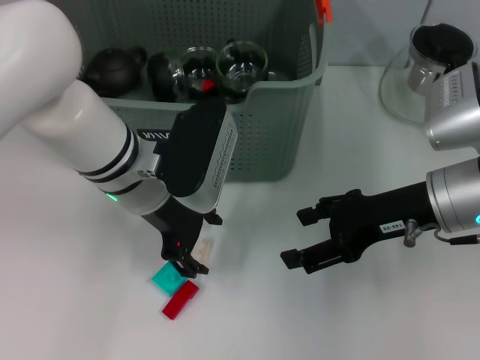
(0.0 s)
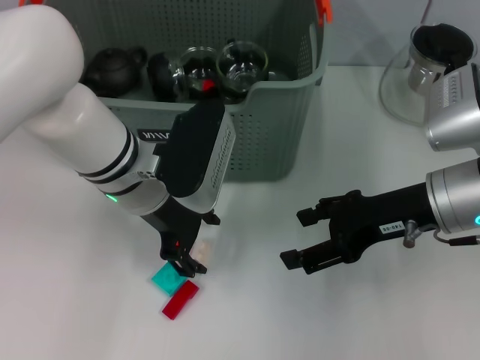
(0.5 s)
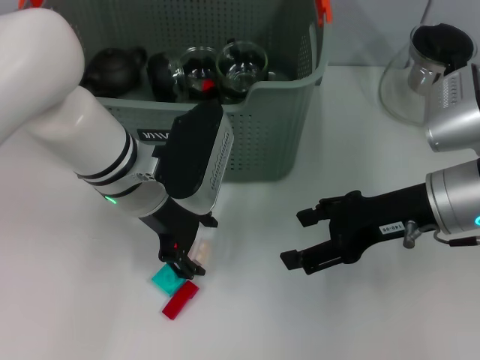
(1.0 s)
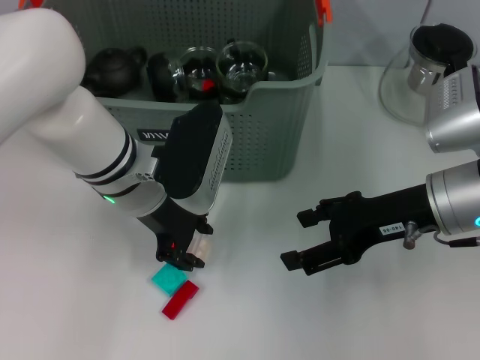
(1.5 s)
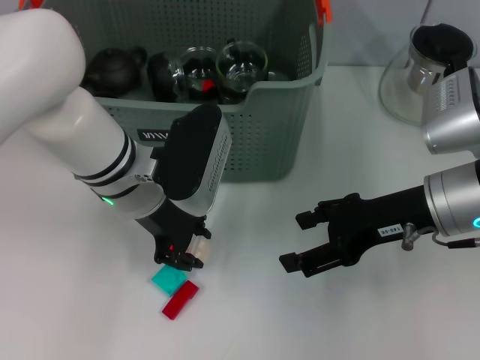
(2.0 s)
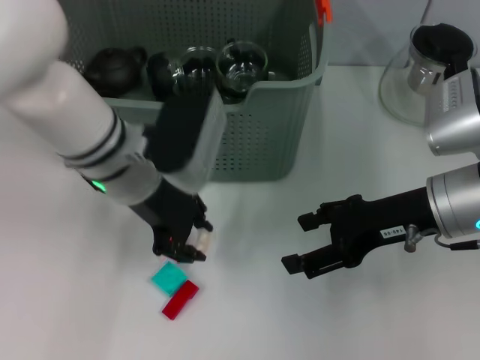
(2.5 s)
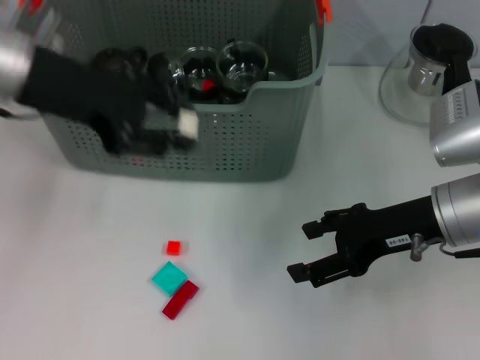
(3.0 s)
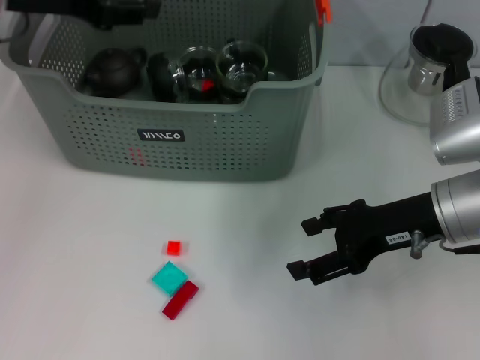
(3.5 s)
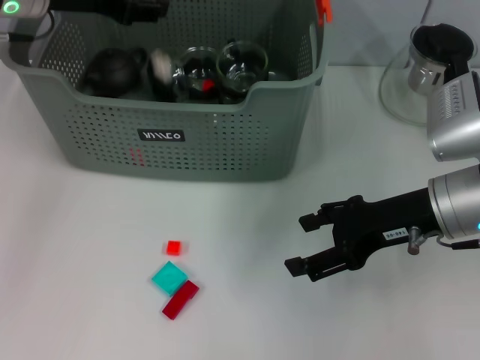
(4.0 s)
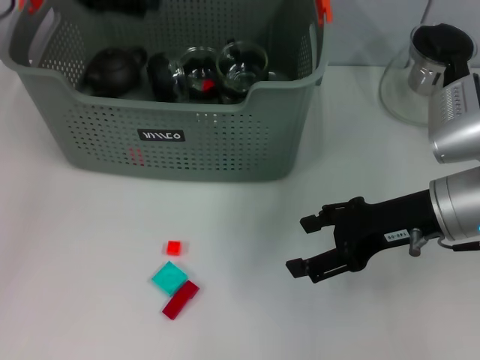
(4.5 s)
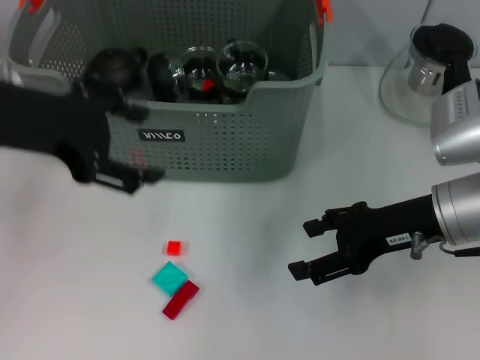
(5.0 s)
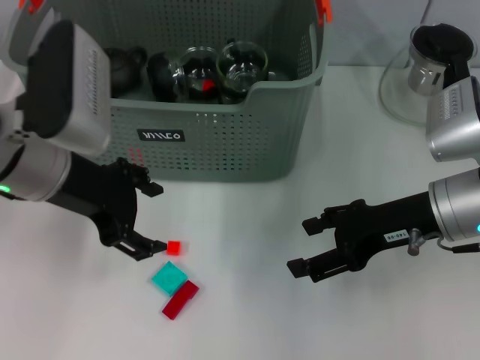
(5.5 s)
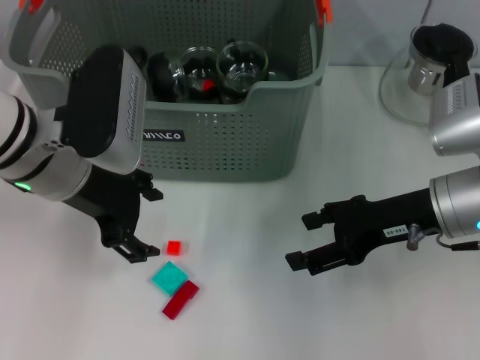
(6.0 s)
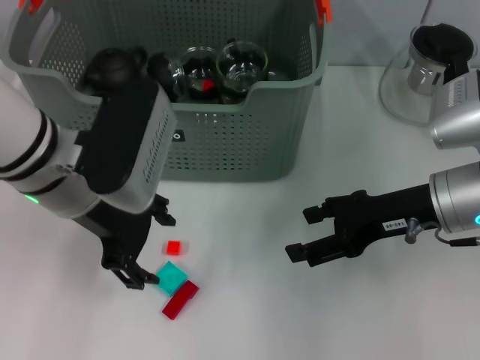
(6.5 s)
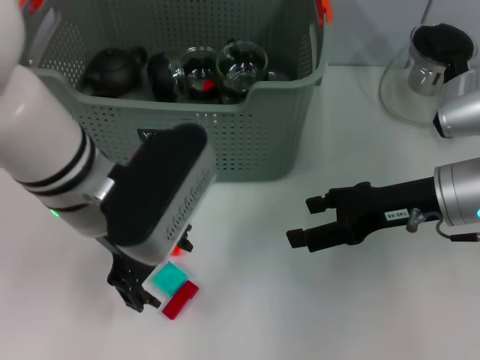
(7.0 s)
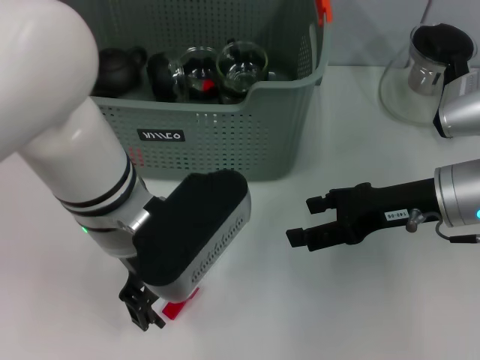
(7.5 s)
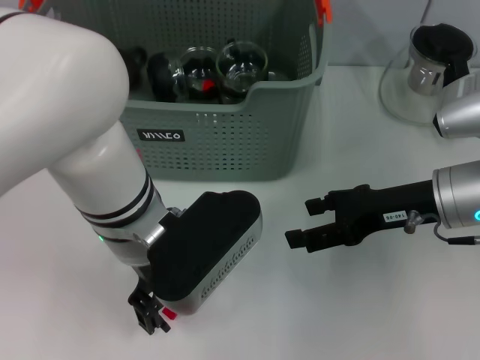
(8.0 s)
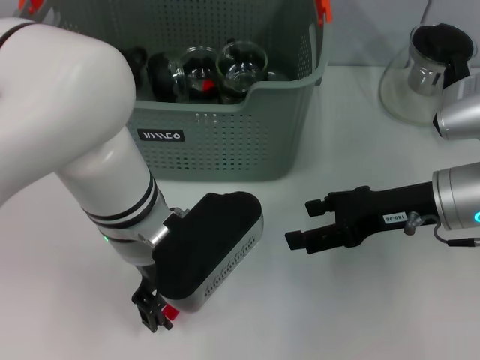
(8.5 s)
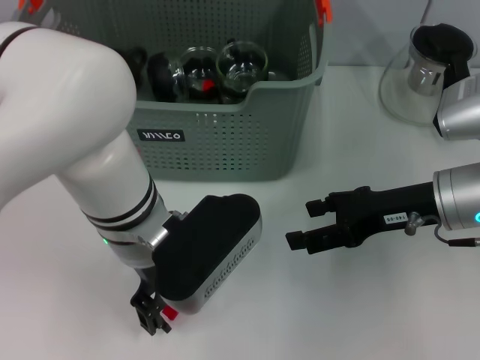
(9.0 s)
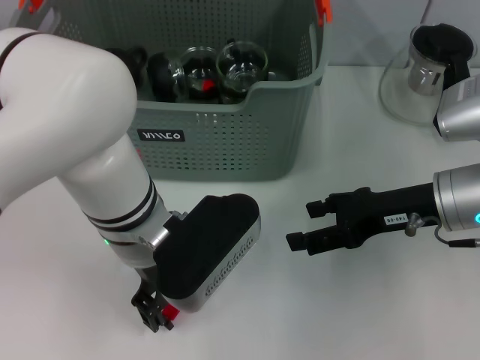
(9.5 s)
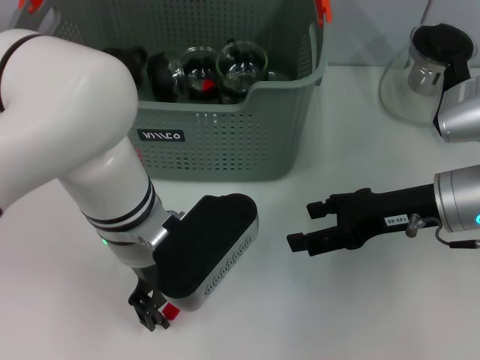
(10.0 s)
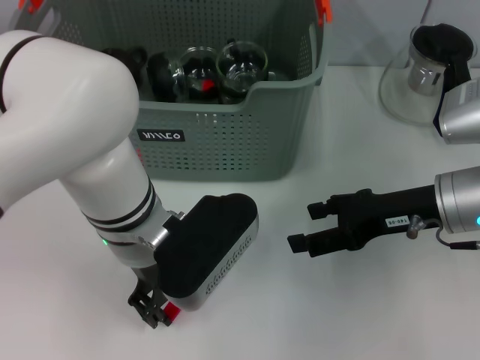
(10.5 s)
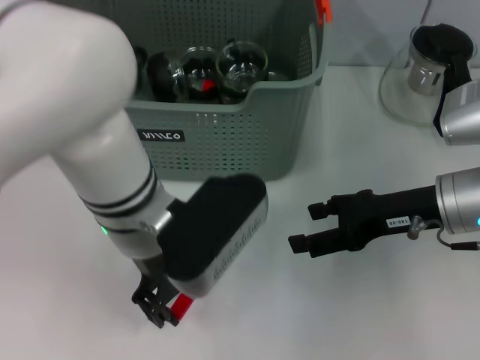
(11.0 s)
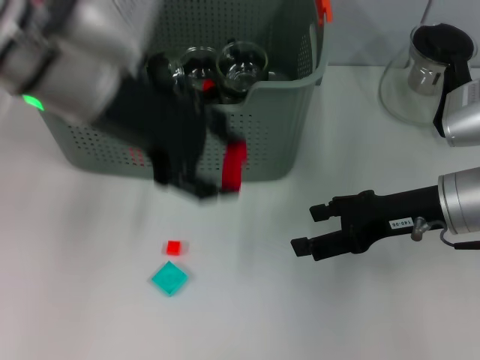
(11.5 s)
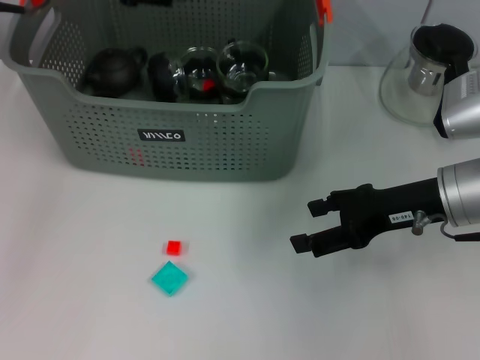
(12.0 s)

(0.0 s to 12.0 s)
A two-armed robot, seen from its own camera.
Task of the whole recording: pick up the teacup on the table and place it into the storage bin, pick up the block on the table and place it into the storage bin.
Step, 0.0 s - 2.0 s: Grasp the white block with left gripper.
Step, 2.5 s - 4.0 s: Place the white block in the storage box with left gripper.
Step, 4.5 s - 10.5 s: Grasp the red block with left gripper.
0.0 s - 2.0 s: Both grippers stay about where they are.
2.0 s - 4.0 s: The left gripper moves upward, to the left and forward, roughly 20 cm.
4.0 s - 6.0 s: The left gripper moves backward, downward and to the right, some 15 cm.
6.0 s - 8.0 s: The left gripper is displaced to the right by roughly 10 cm.
8.0 s - 10.0 s: There are only small adjustments of the grippers.
10.0 s - 12.0 s: The left gripper moves upward, to the left and forward, roughly 25 cm.

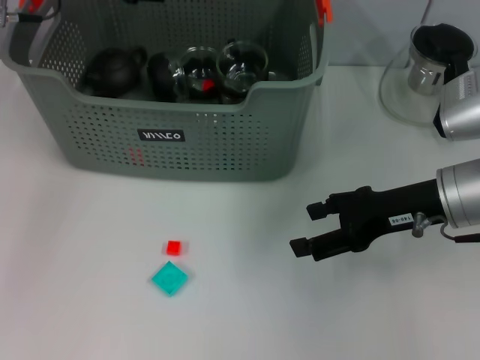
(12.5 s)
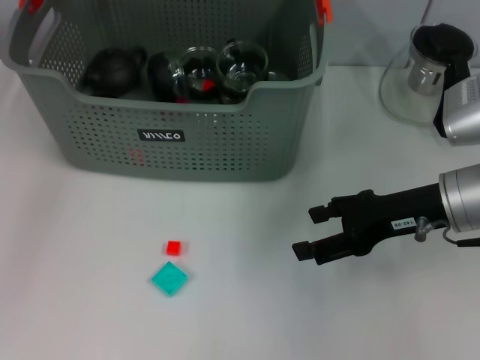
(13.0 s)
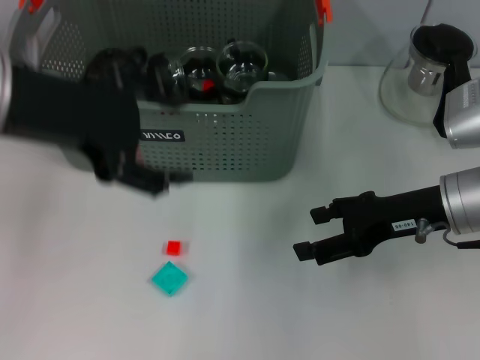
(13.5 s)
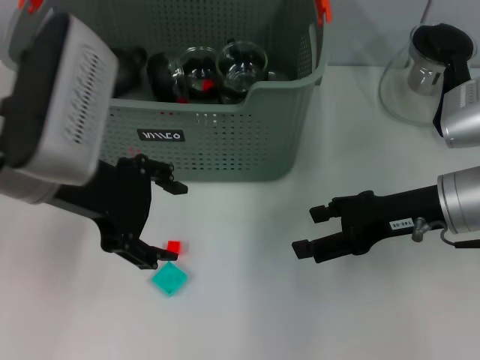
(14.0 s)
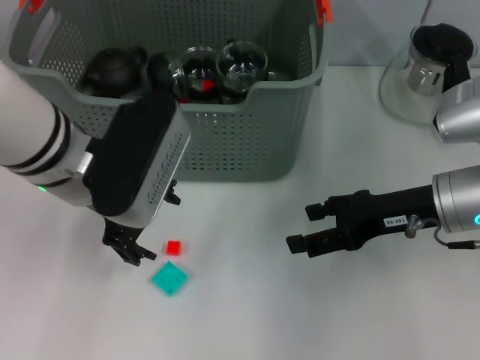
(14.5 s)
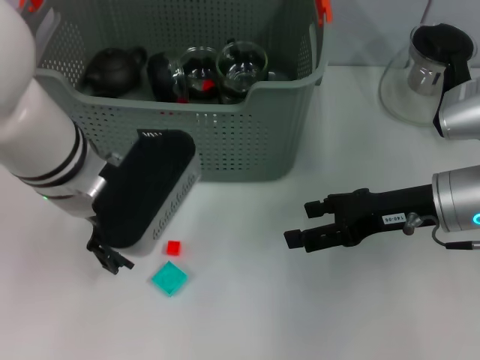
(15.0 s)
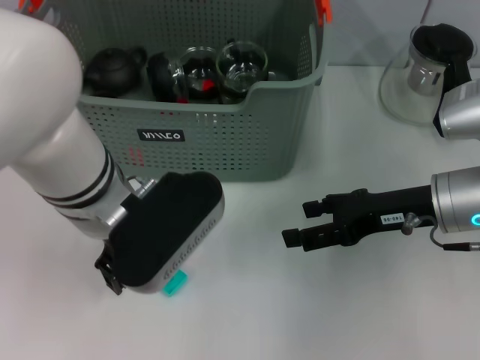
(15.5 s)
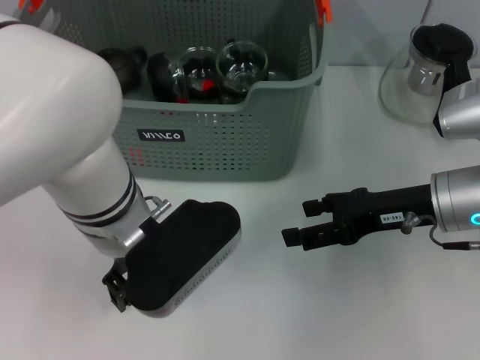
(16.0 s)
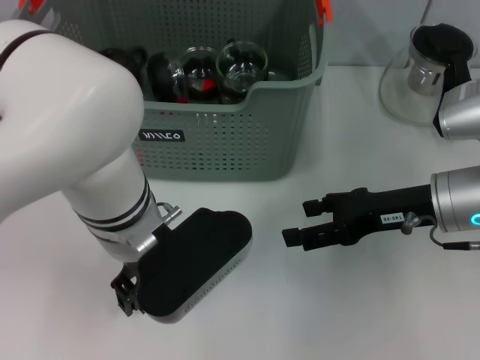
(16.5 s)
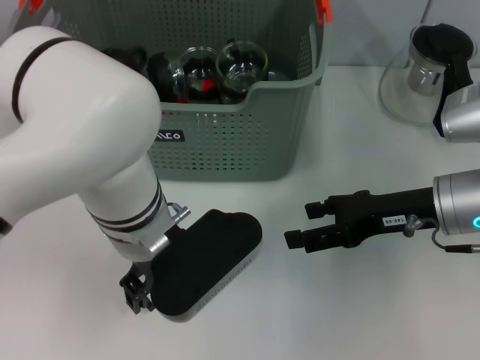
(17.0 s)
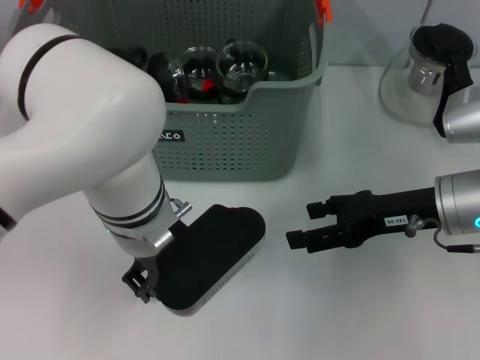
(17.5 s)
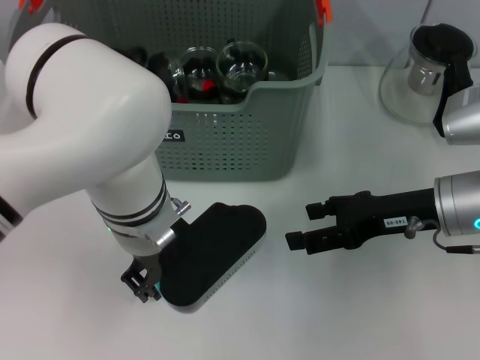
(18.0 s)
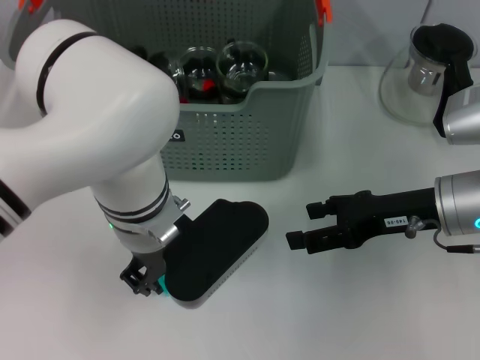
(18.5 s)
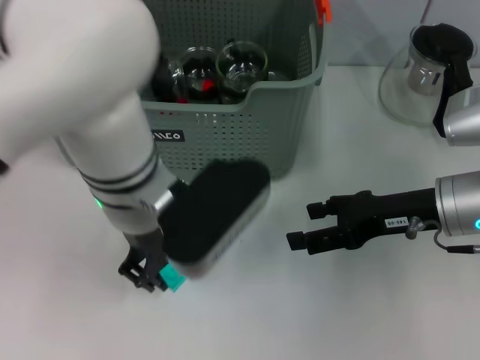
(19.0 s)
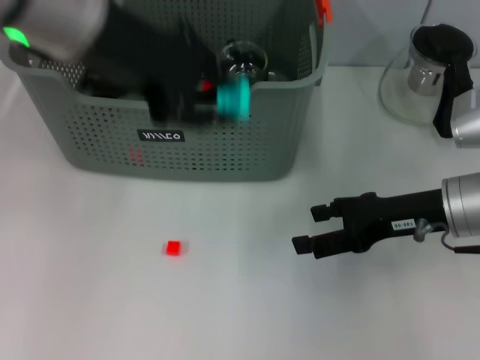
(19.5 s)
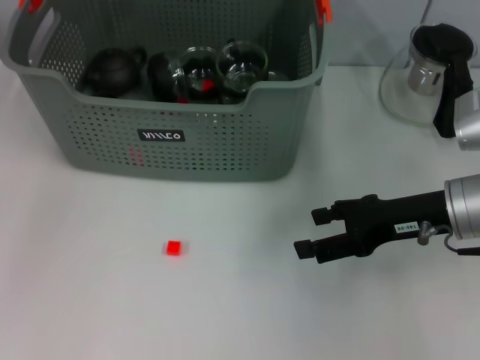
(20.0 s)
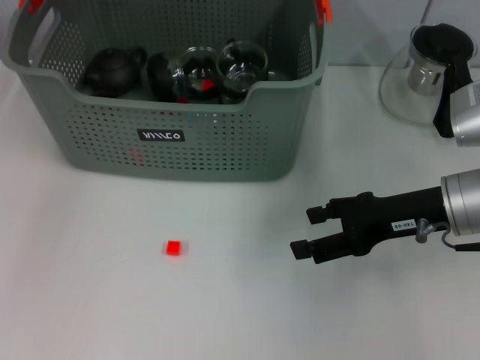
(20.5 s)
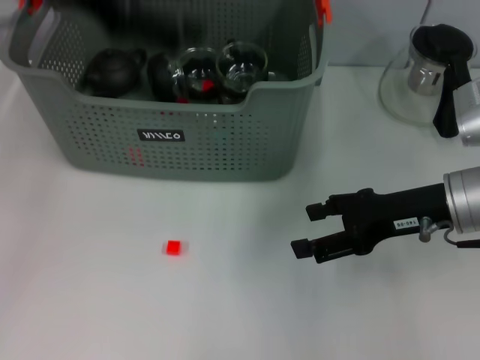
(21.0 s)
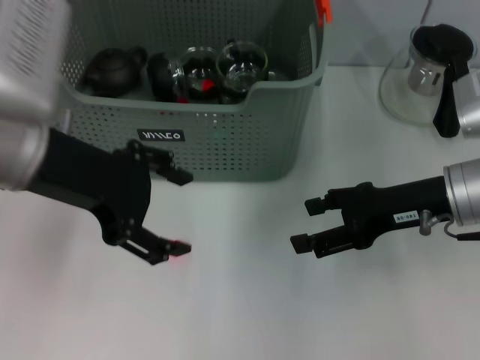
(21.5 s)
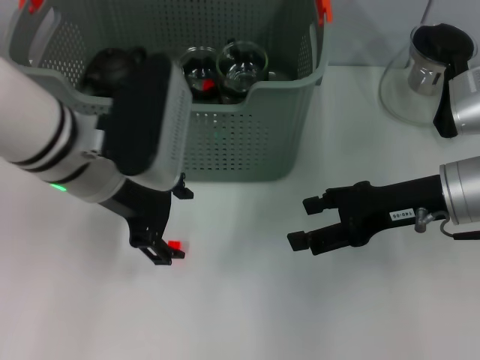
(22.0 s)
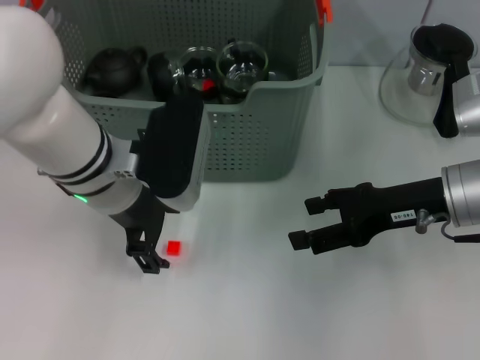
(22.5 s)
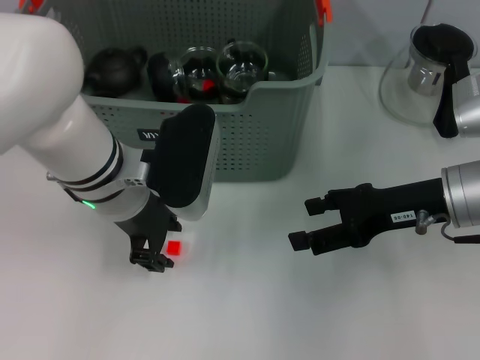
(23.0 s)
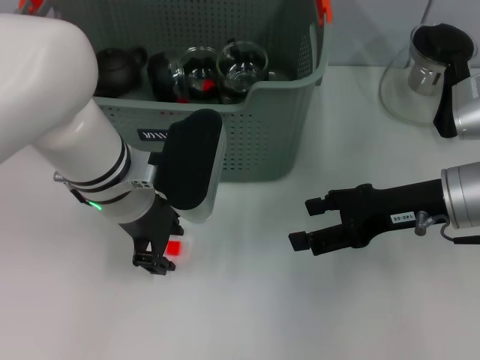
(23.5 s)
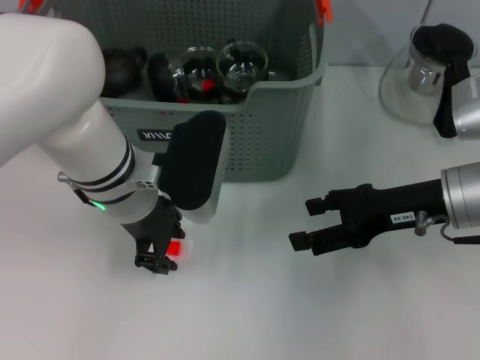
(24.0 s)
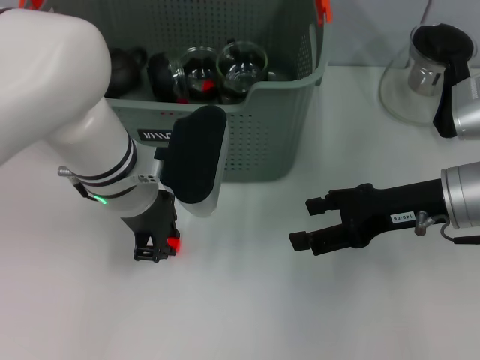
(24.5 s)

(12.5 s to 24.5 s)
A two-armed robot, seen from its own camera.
Task of the whole recording: pick up the teacup on the table and place it into the storage bin, pick up the block on the table and place it into the storage bin.
Step, 13.0 s - 18.0 s: Grasp the light blue block with left gripper.
Step, 18.5 s - 20.5 s: Place the light blue block in the storage box with left gripper.
Step, 21.0 s - 24.5 s: Grasp the orange block with left gripper.
12.5 s - 14.5 s: The left gripper goes roughly 15 cm backward, to the right and downward.
14.5 s - 16.5 s: The left gripper heads to the right, covering roughly 5 cm.
16.5 s - 18.5 s: The left gripper closes.
18.5 s - 20.5 s: The left gripper travels upward, forward and to the left by roughly 25 cm.
20.5 s - 22.5 s: The left gripper shifts about 20 cm downward, backward and to the right, and opens.
22.5 s - 24.5 s: The left gripper closes.

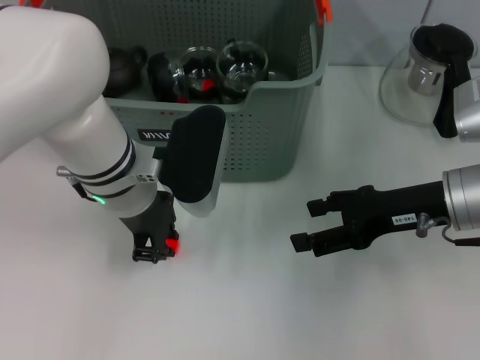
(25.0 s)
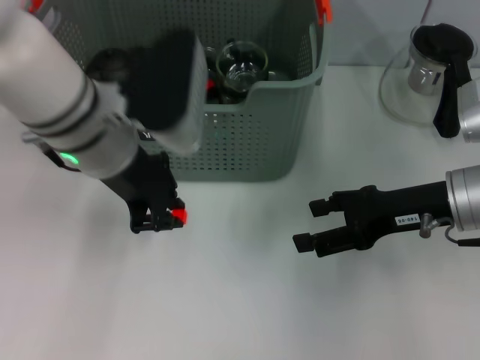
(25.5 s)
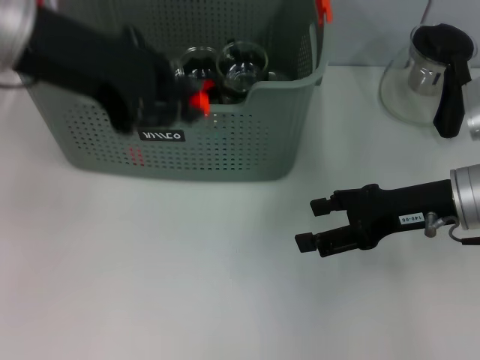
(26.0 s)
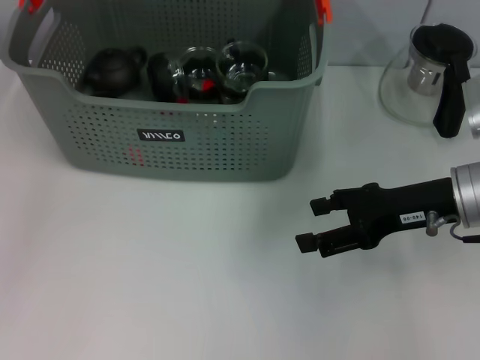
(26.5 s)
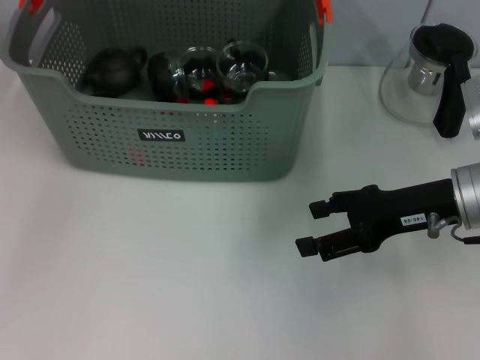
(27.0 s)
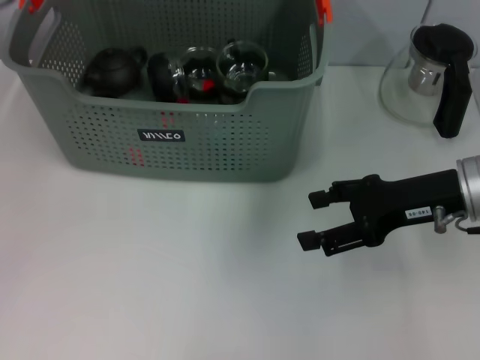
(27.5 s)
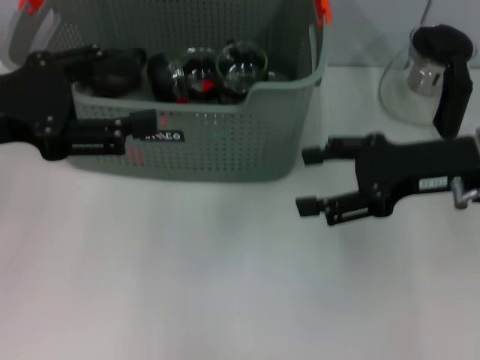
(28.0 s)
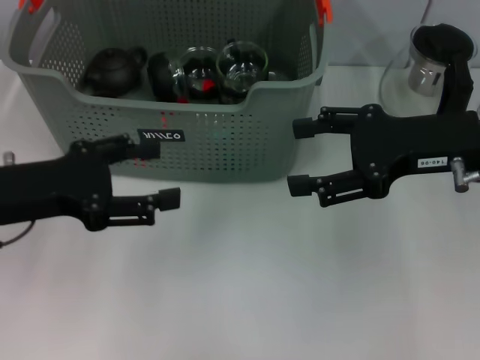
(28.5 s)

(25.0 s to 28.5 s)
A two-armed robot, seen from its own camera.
Task of the whole recording: pick up the teacup on the table and place it into the storage bin, pick up the block on the table and place it into the storage bin.
Step, 25.0 s - 27.0 s: Place the orange block in the storage box with left gripper.
25.0 s - 27.0 s: The left gripper heads upward, forward and to the left, covering about 20 cm.
27.0 s - 28.5 s: The left gripper is displaced backward and downward by some 20 cm, and opens up. The right gripper heads upward, covering roughly 5 cm.
